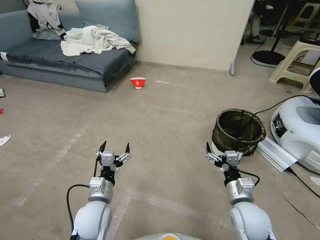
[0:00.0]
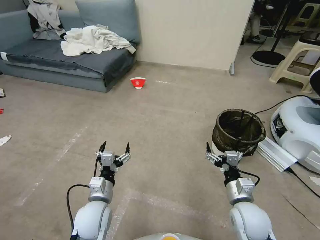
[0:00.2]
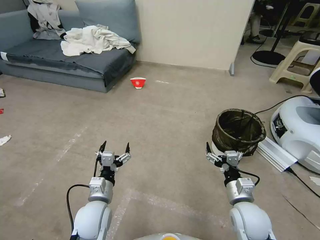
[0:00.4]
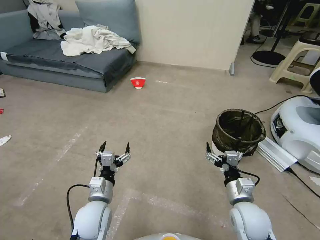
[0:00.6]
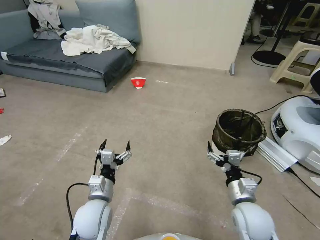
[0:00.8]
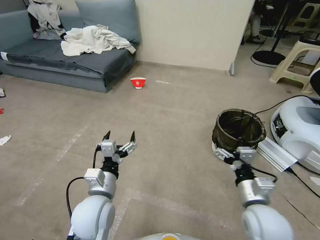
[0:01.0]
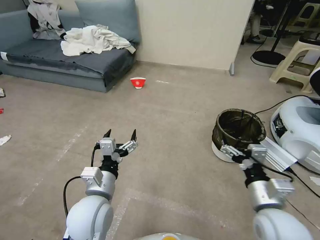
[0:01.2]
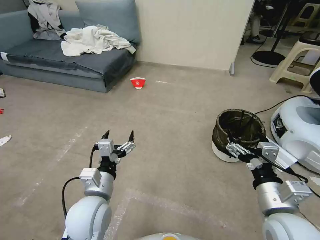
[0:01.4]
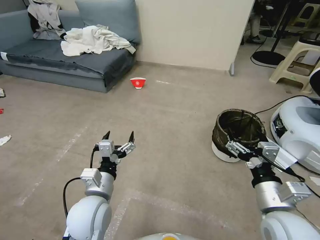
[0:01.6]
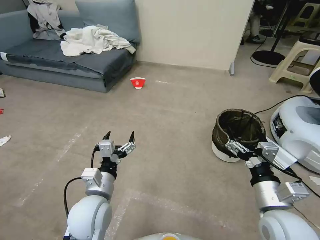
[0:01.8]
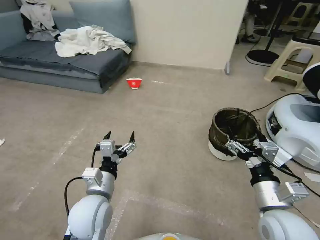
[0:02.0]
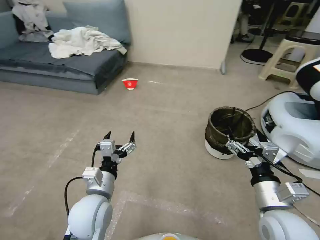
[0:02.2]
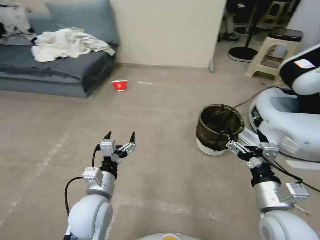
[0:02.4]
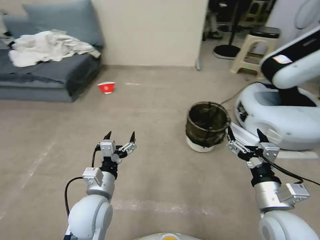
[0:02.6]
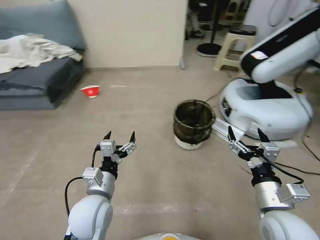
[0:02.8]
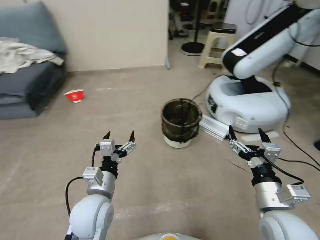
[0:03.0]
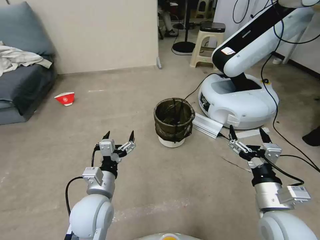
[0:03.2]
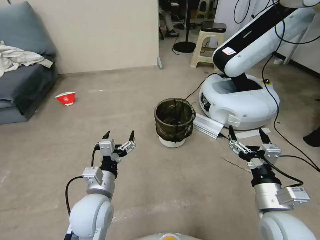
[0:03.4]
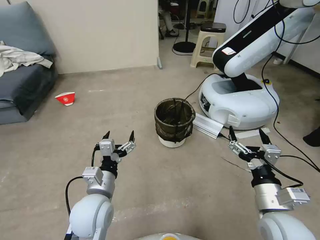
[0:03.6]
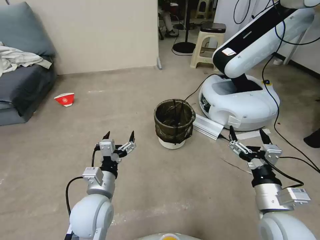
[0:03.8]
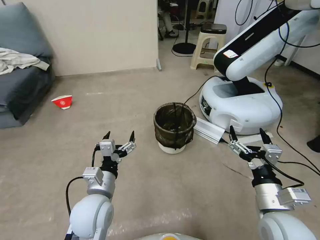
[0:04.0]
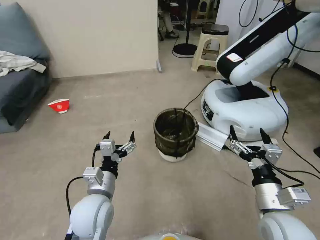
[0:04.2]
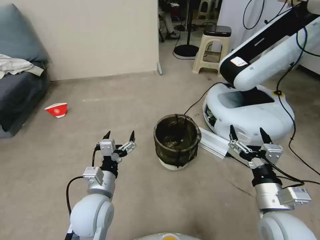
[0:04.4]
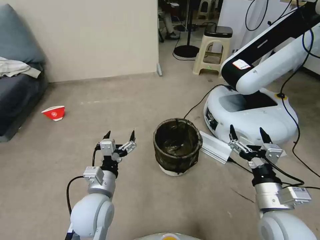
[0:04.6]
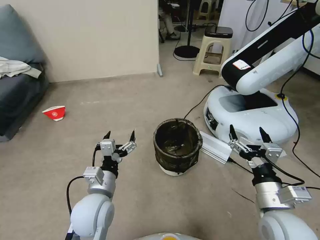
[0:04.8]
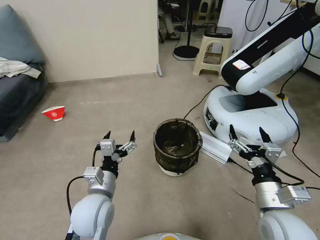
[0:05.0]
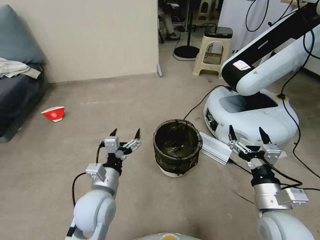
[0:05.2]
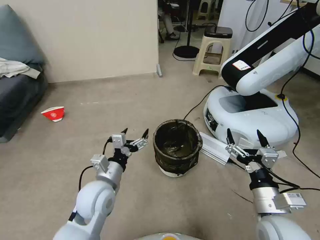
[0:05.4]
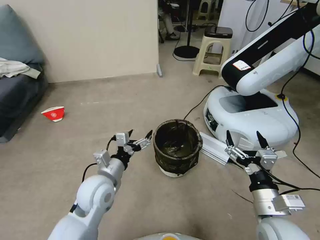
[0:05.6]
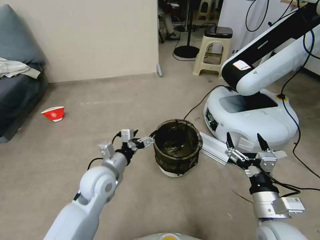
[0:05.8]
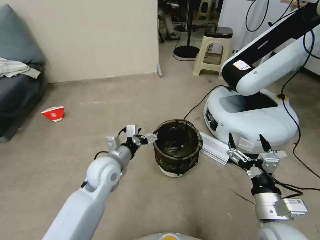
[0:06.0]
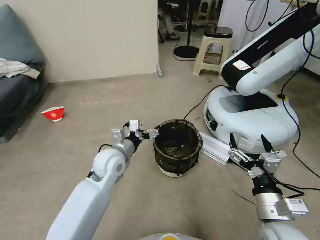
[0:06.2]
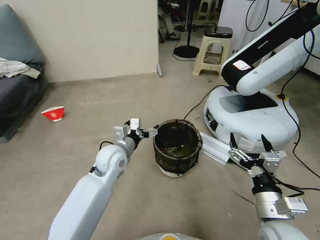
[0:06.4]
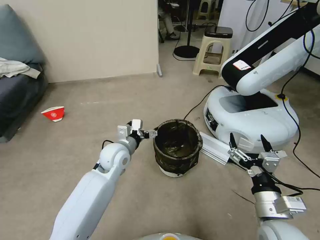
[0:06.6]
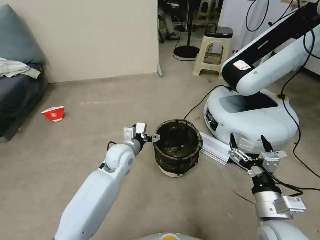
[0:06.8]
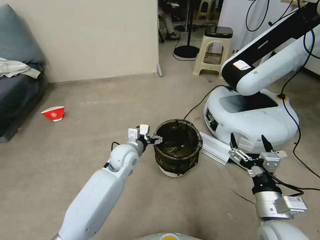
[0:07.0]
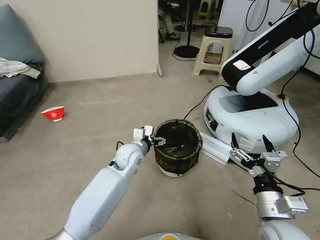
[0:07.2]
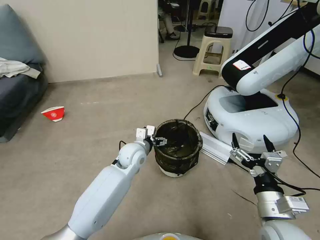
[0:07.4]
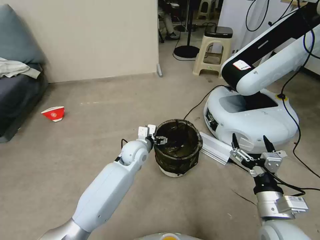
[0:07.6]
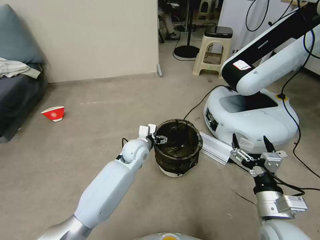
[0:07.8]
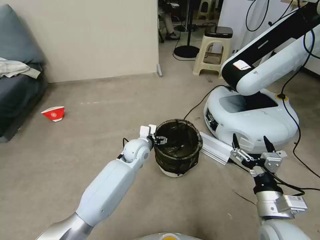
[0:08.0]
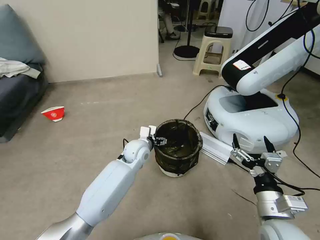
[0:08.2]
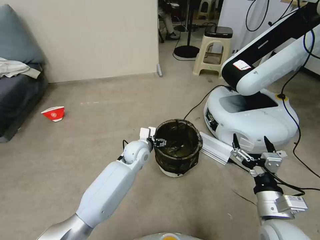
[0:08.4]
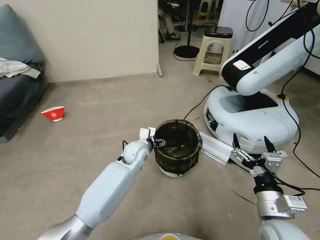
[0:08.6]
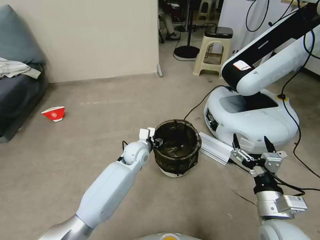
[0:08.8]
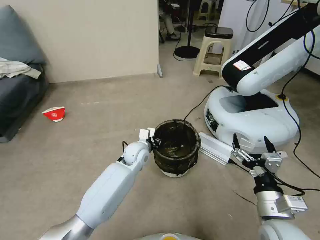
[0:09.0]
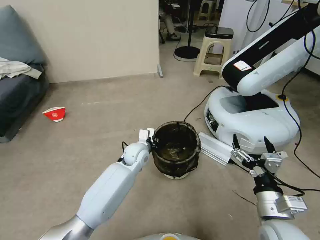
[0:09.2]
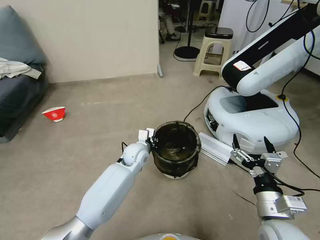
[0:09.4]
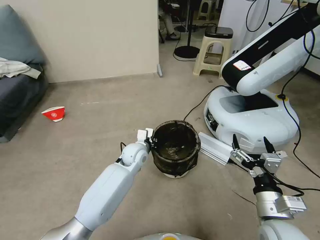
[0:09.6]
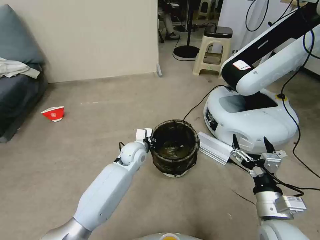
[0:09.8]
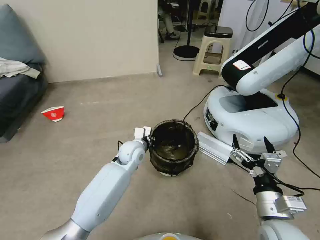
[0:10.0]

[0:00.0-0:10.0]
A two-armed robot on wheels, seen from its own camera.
Task of the whole recording: Pick up the trash can from the floor.
0:04.2 to 0:05.8: The left gripper moves forward, about 5 cm.
0:05.8 to 0:07.2: The left gripper heads forward and to the right, covering about 15 cm.
0:07.2 to 0:08.6: The grippers move only a little.
0:08.6 to 0:10.0: The left gripper closes its fingers.

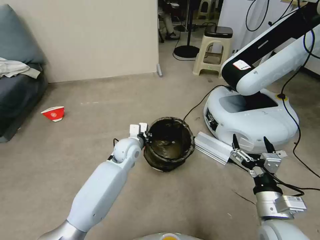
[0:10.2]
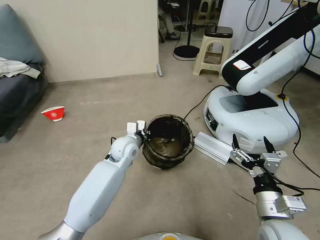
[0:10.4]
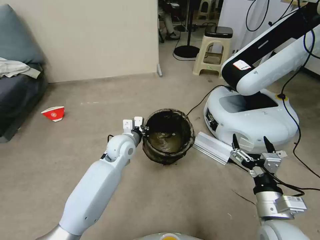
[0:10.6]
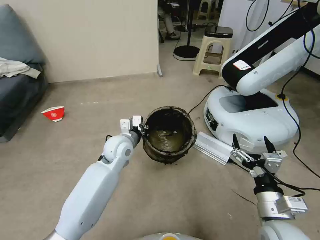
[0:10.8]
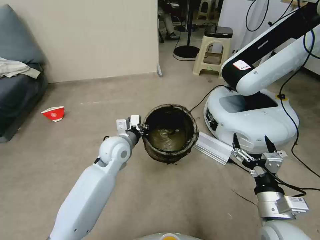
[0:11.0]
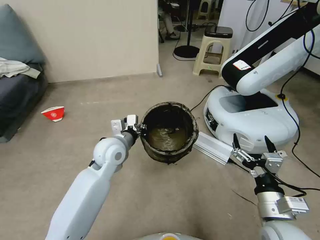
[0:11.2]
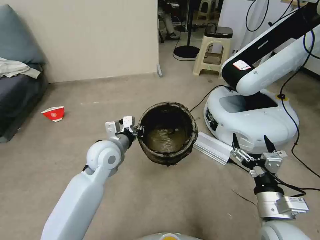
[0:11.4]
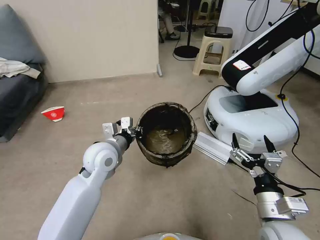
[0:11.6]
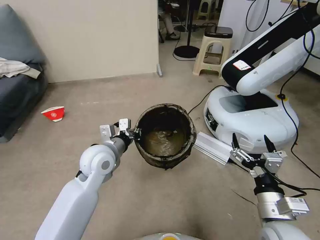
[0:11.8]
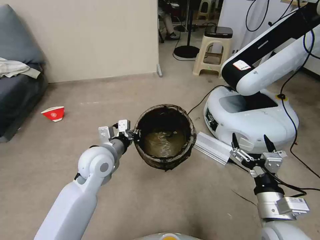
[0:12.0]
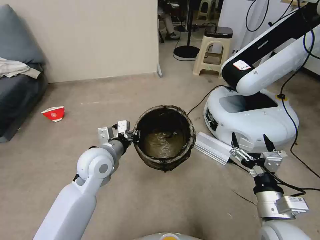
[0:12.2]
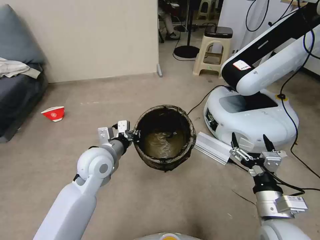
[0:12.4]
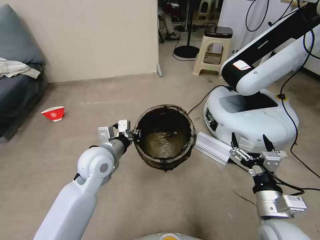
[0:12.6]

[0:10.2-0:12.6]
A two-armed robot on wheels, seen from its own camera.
Task of the whole recording: Pick up the trash can from the floor.
0:10.2 to 0:11.4: The left gripper moves upward and backward, some 10 cm.
0:11.4 to 0:12.6: The grippers make only small movements.

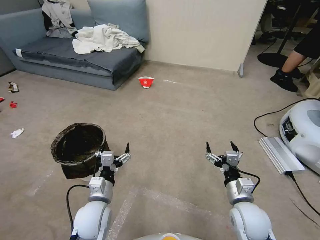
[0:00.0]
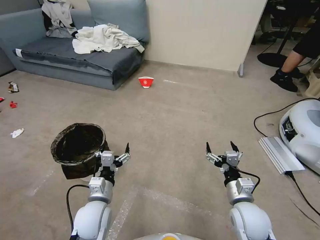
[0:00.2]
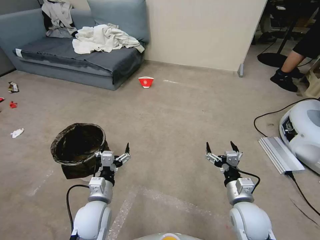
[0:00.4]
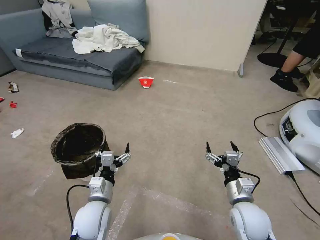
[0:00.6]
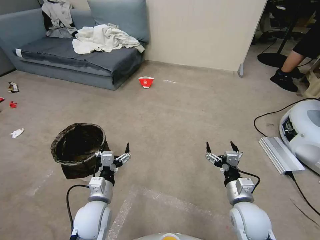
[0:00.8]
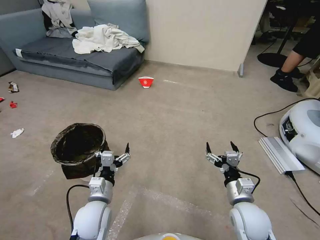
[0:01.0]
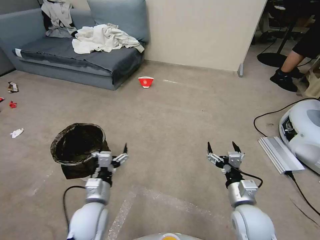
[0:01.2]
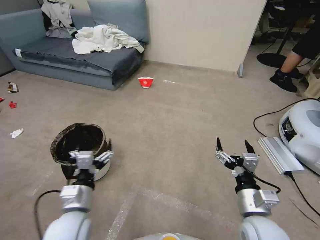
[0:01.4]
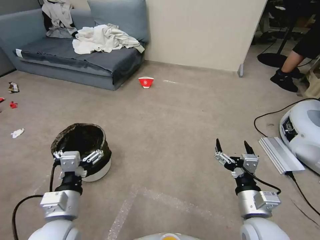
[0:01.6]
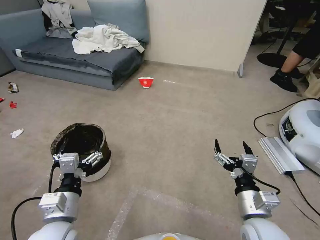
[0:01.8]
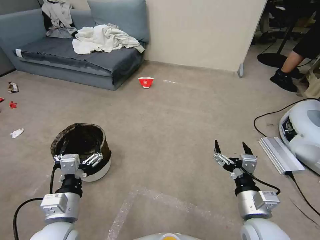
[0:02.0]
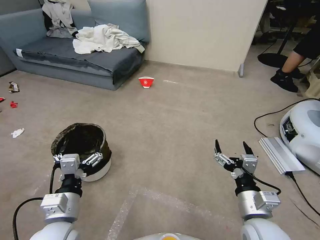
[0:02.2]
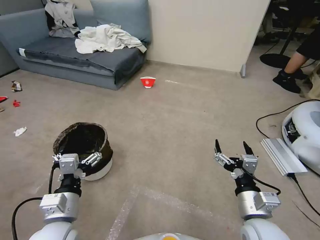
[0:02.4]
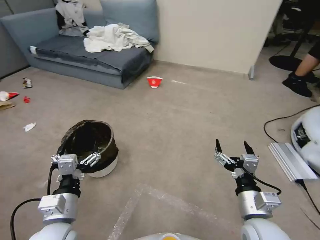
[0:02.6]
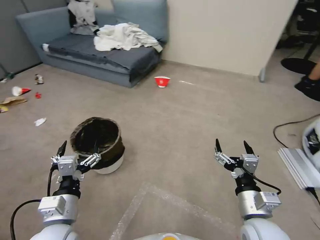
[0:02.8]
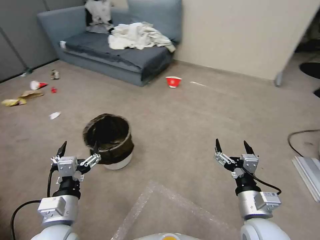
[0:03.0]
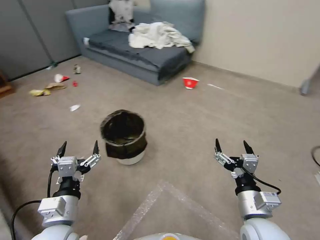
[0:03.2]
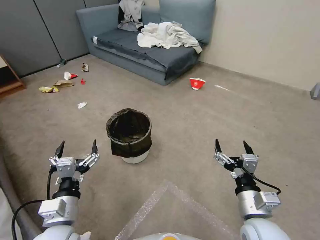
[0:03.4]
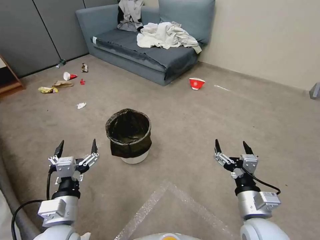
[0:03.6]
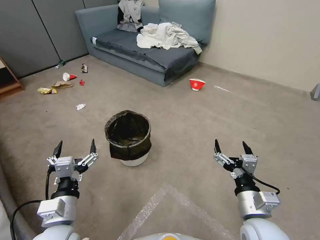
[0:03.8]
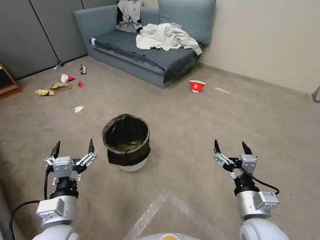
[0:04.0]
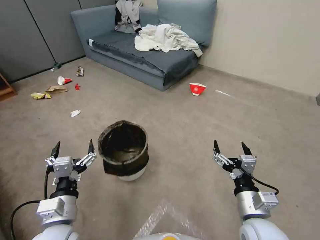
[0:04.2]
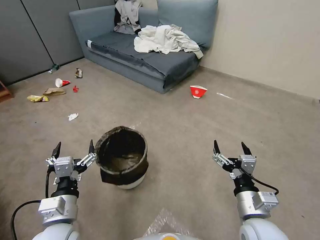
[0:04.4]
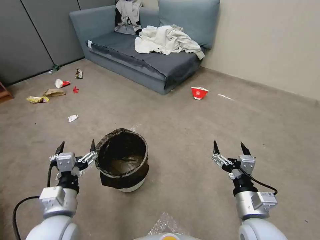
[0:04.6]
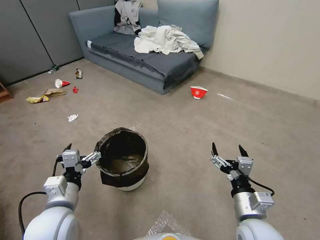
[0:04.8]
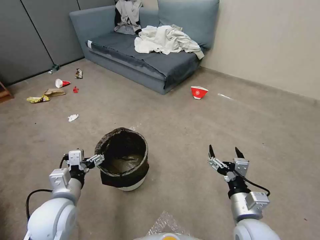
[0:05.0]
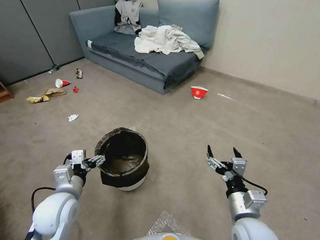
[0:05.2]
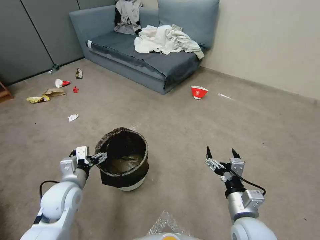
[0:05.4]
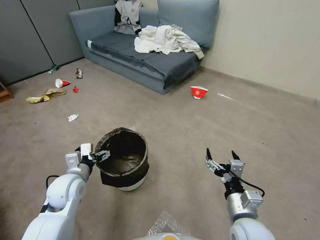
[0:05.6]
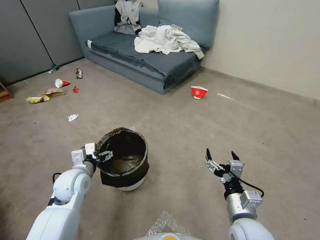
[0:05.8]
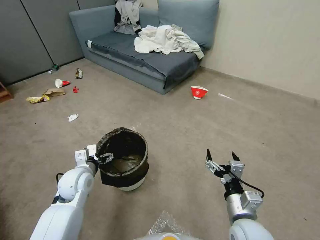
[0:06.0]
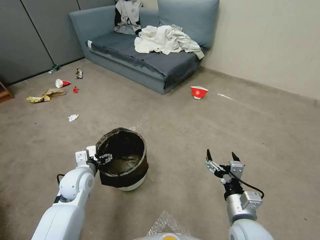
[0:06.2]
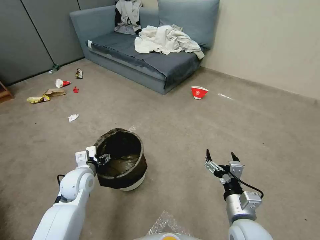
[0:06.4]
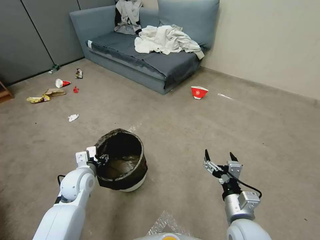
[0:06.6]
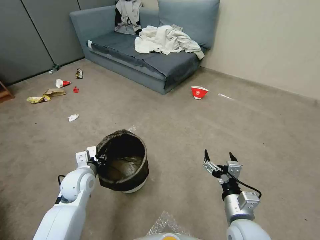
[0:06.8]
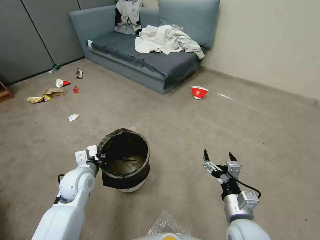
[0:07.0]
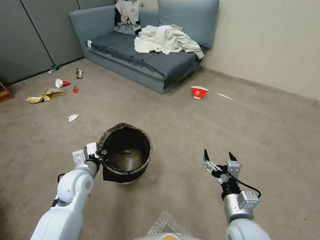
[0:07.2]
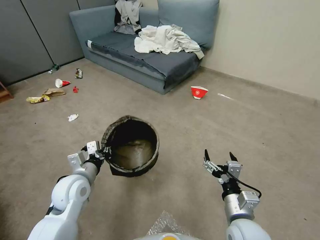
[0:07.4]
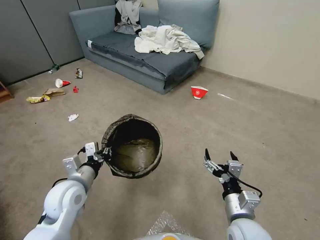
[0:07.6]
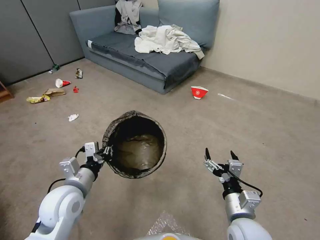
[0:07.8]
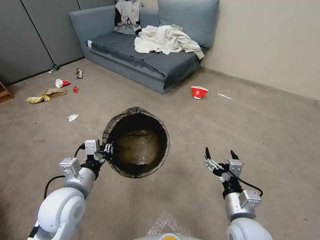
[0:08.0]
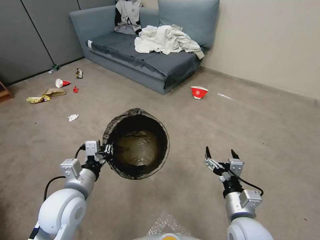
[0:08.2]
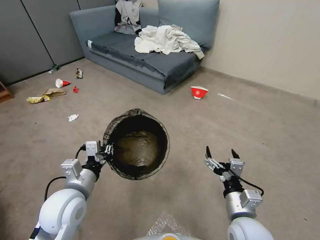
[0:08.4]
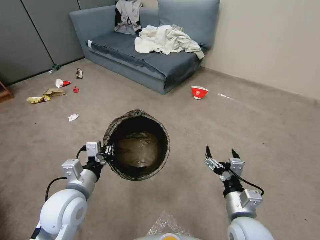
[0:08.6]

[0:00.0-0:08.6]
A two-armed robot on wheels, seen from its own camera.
Task of the whole recording: Pick up the trash can from the floor.
0:04.4 to 0:05.8: The left gripper goes roughly 15 cm forward.
0:05.8 to 0:07.2: The left gripper closes up.
0:07.2 to 0:08.6: The left gripper shifts some 10 cm backward and upward.
